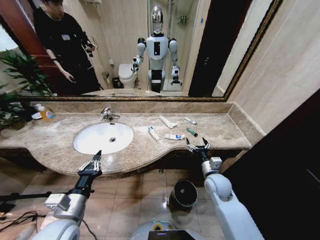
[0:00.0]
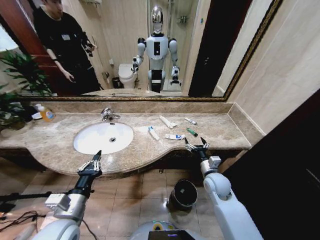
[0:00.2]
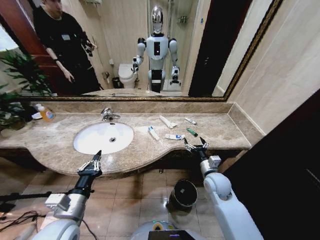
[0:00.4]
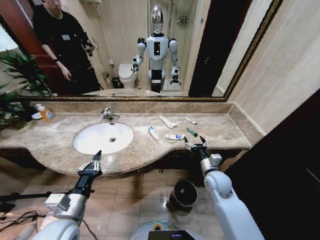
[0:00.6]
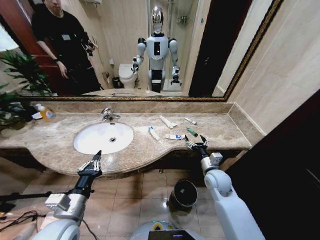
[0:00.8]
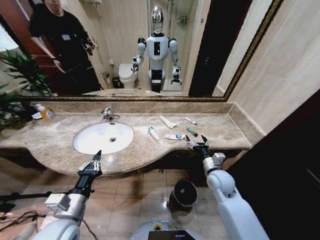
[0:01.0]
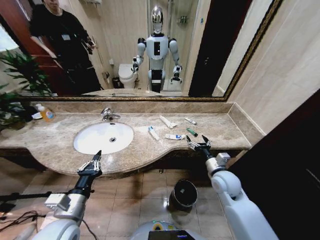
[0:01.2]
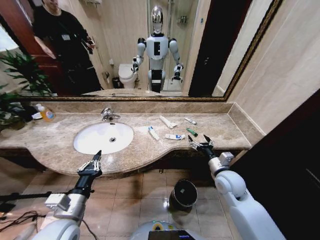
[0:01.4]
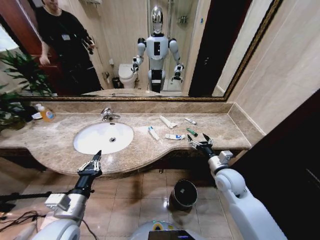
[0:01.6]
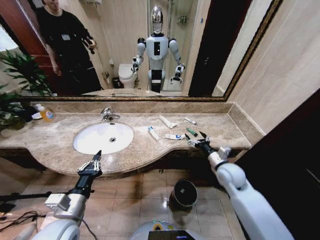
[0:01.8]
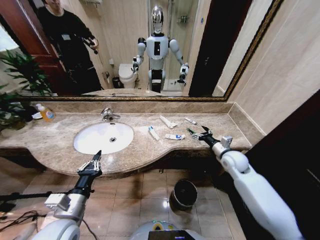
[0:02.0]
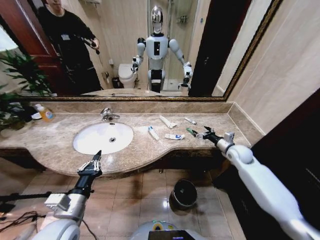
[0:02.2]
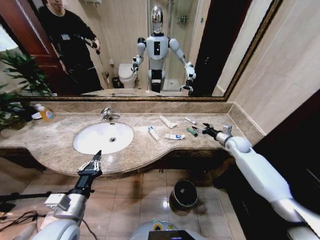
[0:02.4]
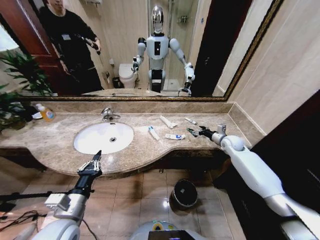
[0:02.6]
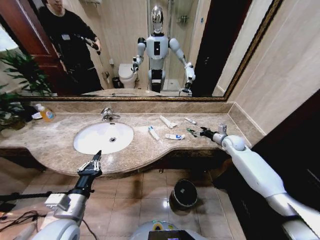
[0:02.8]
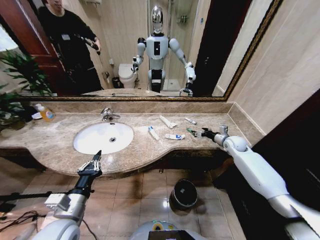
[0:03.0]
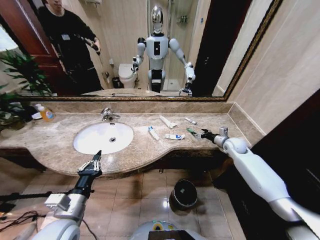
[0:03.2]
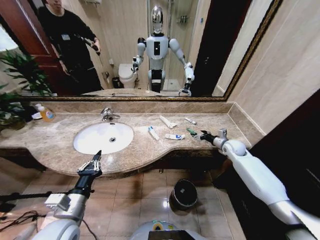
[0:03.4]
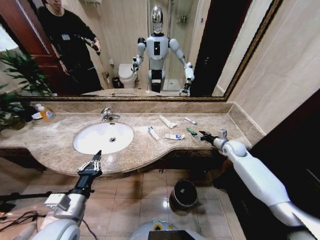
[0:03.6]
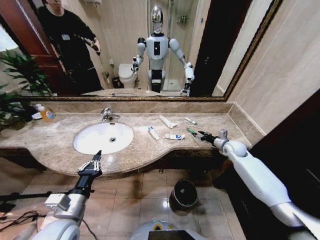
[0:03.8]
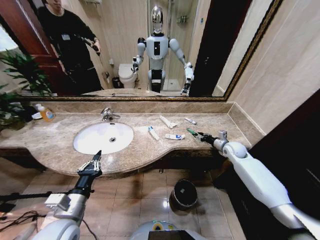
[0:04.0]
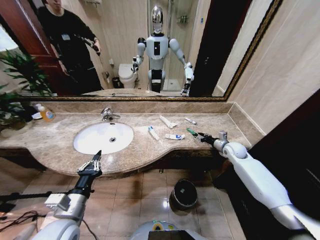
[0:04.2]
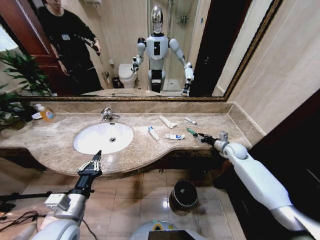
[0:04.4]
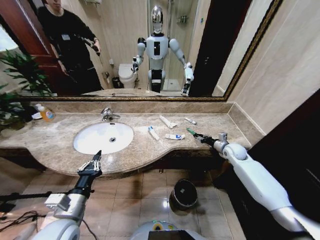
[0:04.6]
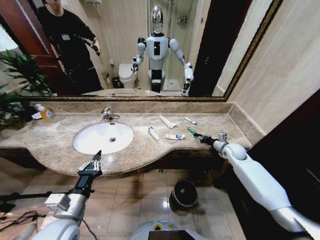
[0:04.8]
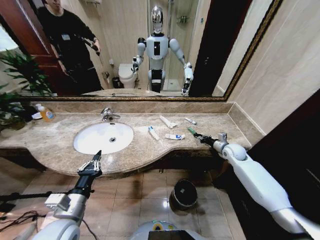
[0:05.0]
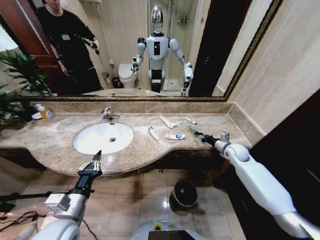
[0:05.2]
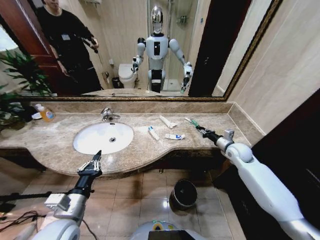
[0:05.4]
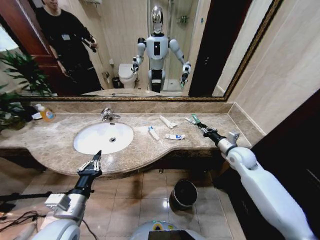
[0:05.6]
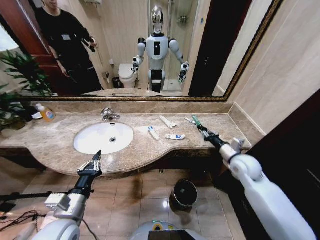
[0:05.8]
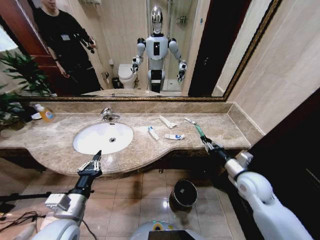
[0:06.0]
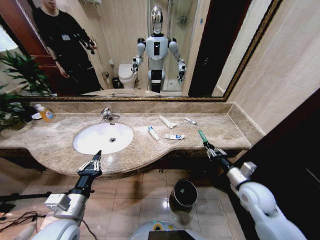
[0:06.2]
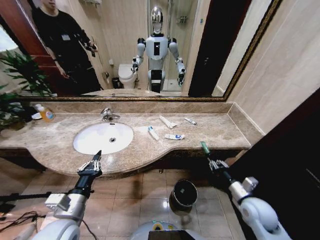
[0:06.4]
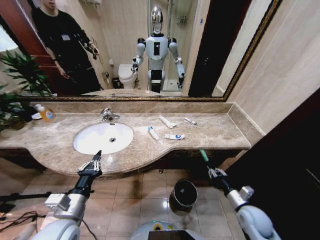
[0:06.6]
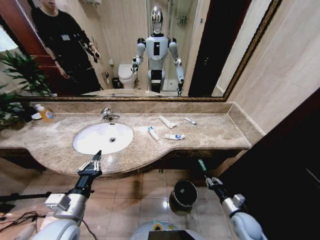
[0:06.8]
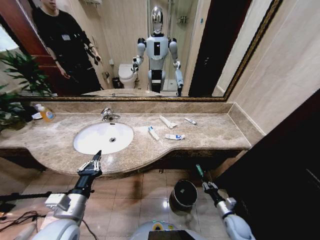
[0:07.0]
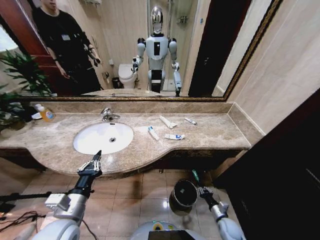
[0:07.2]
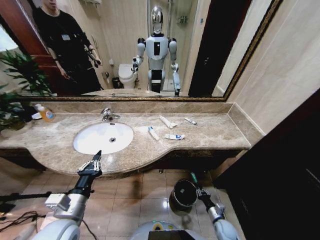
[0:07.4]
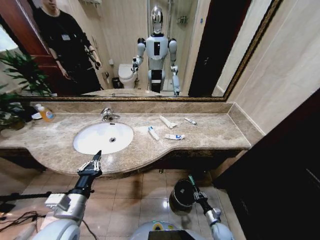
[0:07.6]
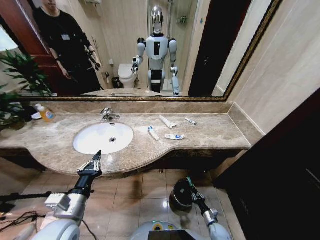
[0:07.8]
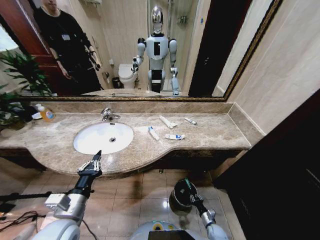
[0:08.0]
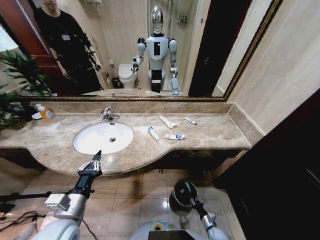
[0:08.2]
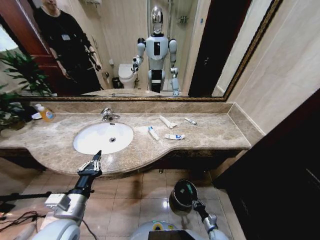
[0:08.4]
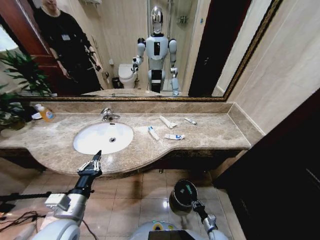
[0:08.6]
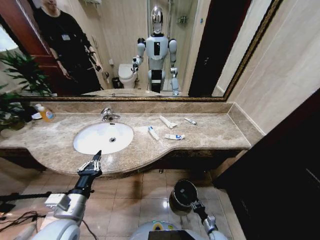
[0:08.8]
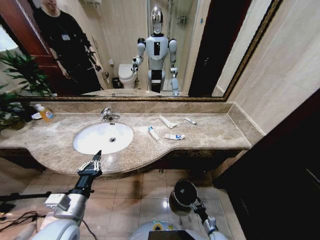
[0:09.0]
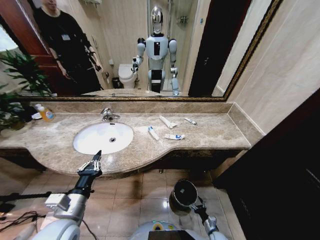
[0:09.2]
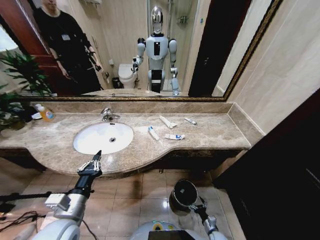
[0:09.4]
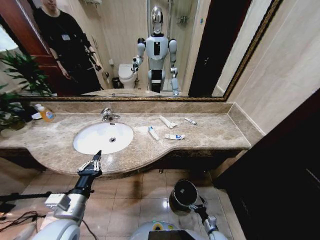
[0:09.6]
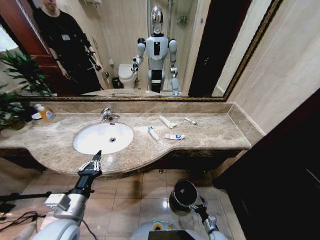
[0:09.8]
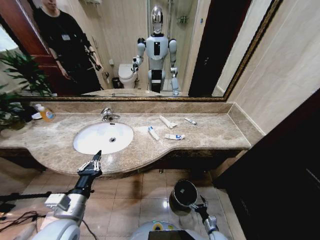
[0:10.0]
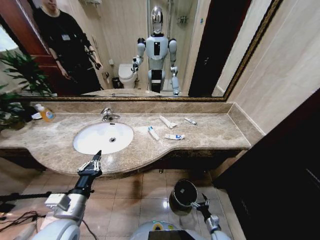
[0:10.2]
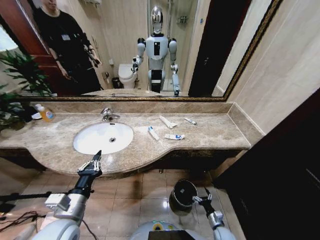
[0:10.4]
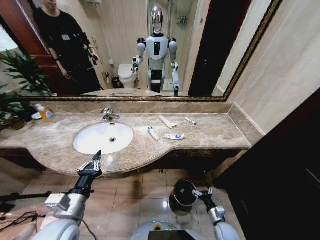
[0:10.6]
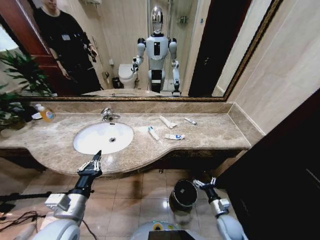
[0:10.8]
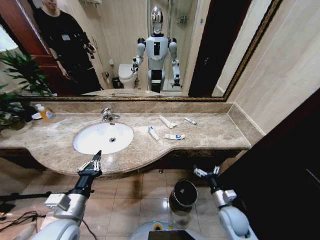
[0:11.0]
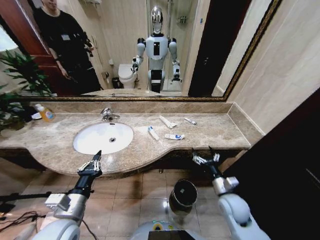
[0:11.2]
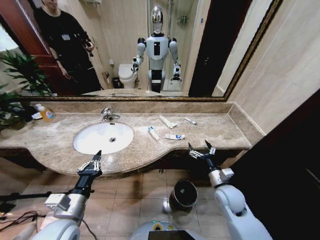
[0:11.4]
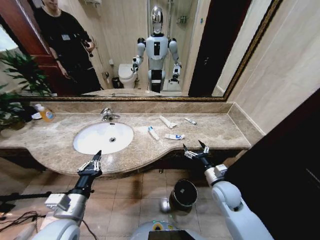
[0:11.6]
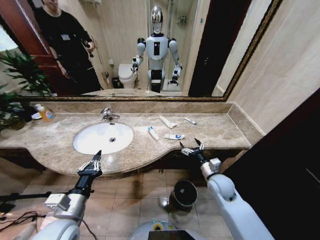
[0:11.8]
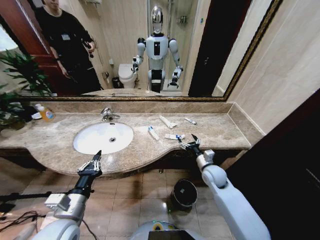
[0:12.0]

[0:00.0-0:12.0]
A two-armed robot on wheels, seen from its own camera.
Task of the whole recording: Pick up the trash from the sink and place it in the trash bin.
0:01.6 to 0:03.0: The right gripper heads forward and to the right, covering roughly 25 cm.
0:03.0 to 0:04.4: The right gripper closes.
0:04.4 to 0:06.0: The right gripper travels backward by roughly 20 cm.
0:06.0 to 0:07.6: The right gripper goes about 40 cm downward.
0:07.6 to 0:09.0: The right gripper shifts some 5 cm downward.
0:09.0 to 0:10.4: The right gripper shifts approximately 5 cm upward, and opens its fingers.
0:10.4 to 0:12.0: The right gripper travels upward and forward by some 35 cm.

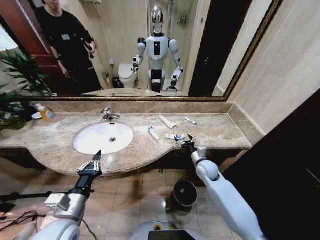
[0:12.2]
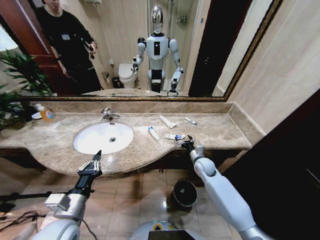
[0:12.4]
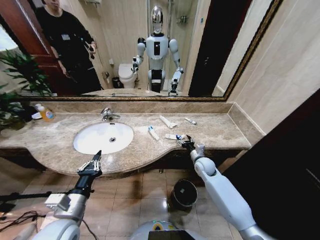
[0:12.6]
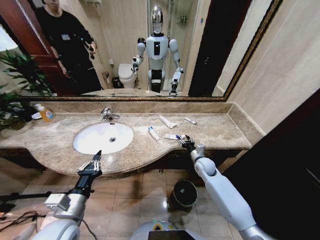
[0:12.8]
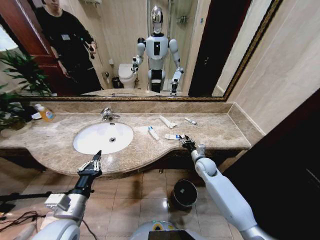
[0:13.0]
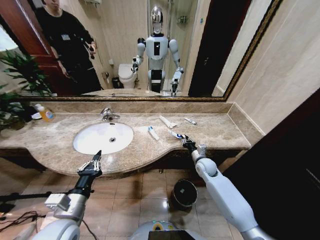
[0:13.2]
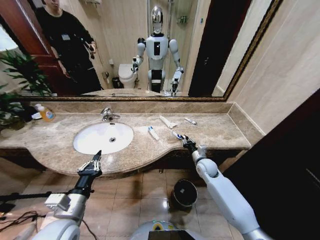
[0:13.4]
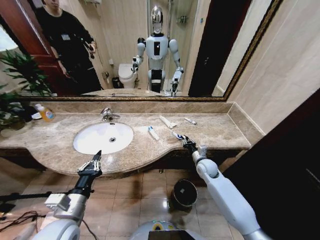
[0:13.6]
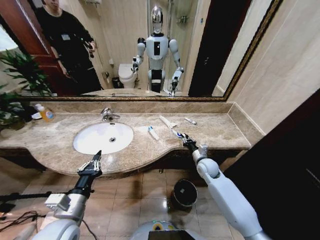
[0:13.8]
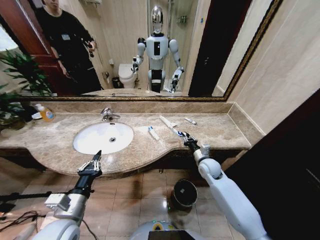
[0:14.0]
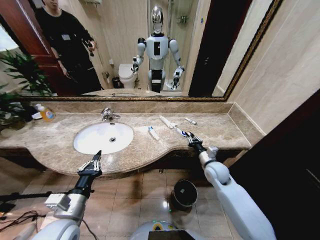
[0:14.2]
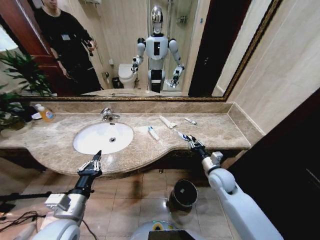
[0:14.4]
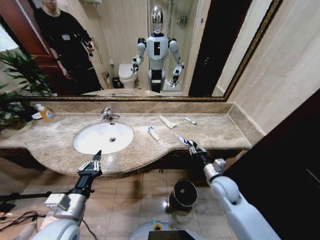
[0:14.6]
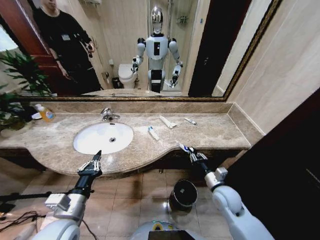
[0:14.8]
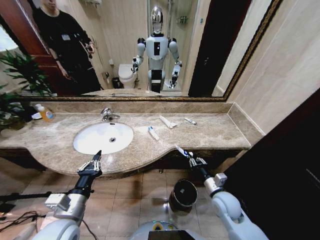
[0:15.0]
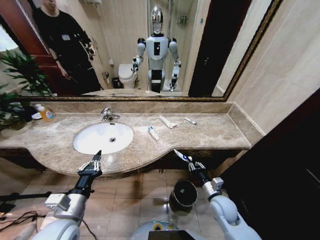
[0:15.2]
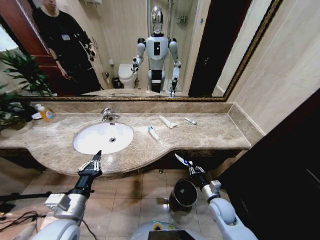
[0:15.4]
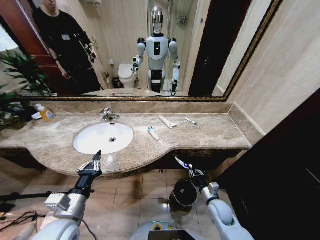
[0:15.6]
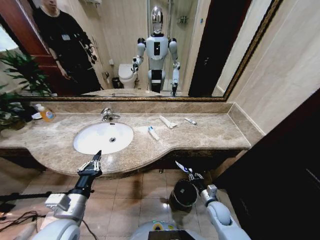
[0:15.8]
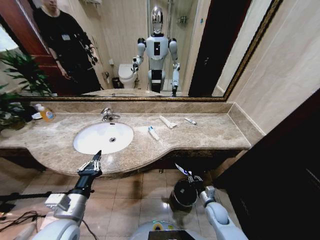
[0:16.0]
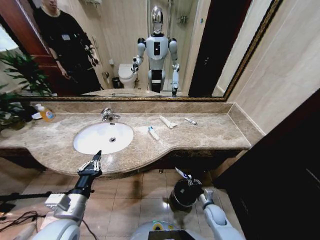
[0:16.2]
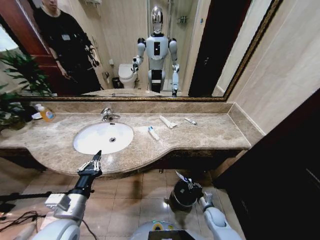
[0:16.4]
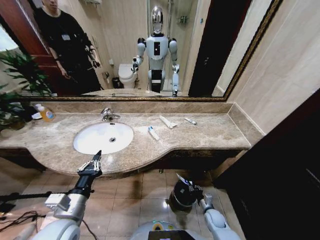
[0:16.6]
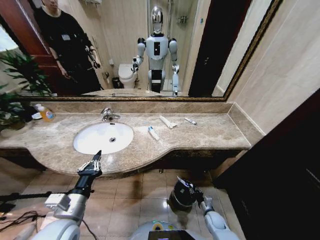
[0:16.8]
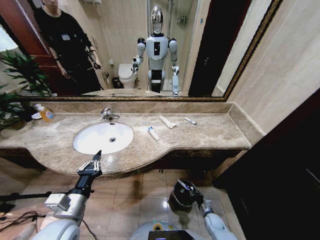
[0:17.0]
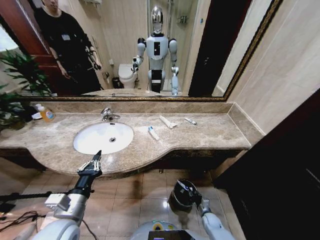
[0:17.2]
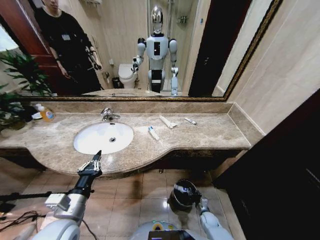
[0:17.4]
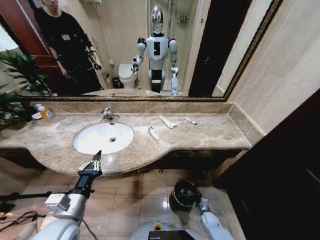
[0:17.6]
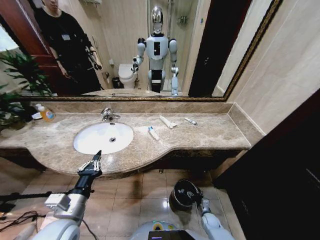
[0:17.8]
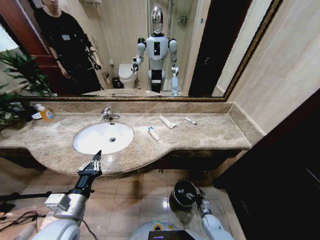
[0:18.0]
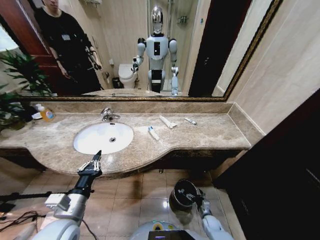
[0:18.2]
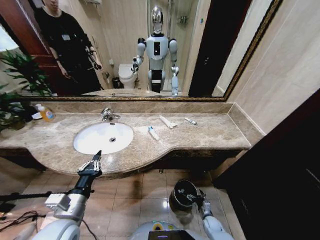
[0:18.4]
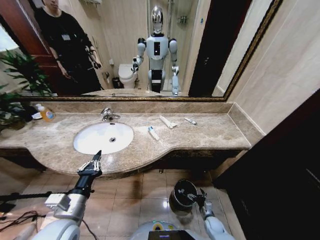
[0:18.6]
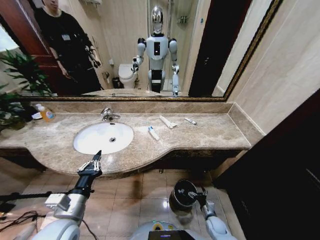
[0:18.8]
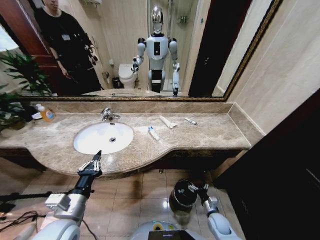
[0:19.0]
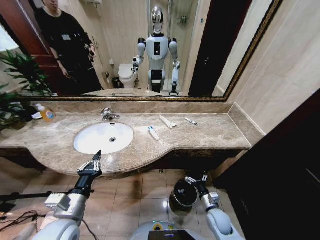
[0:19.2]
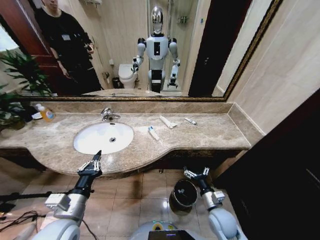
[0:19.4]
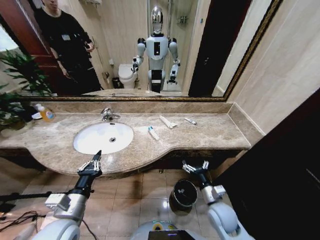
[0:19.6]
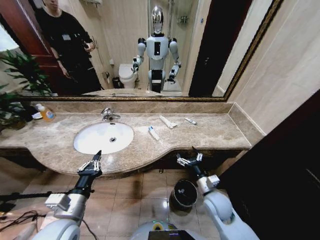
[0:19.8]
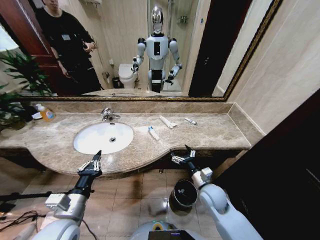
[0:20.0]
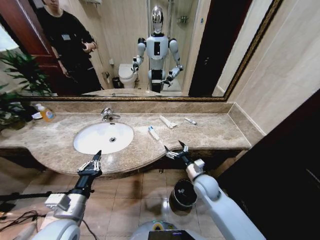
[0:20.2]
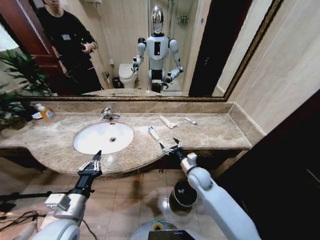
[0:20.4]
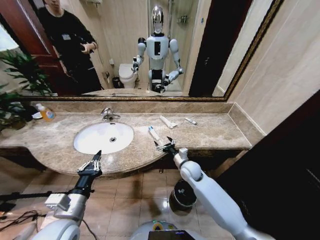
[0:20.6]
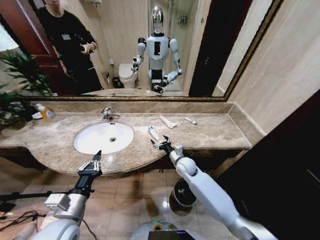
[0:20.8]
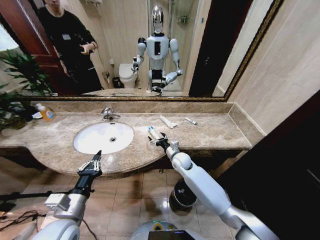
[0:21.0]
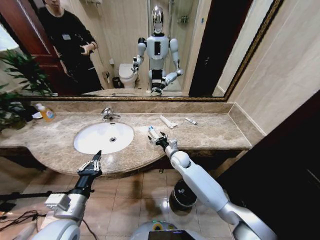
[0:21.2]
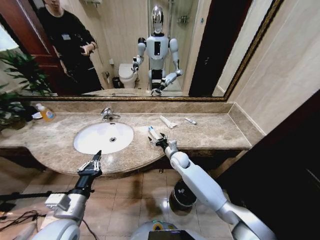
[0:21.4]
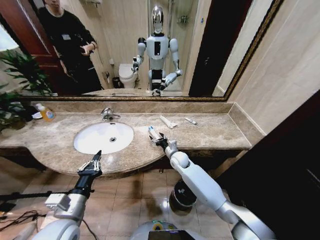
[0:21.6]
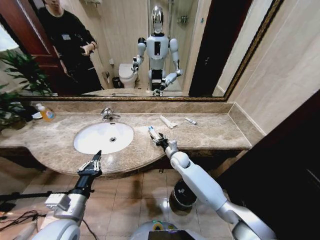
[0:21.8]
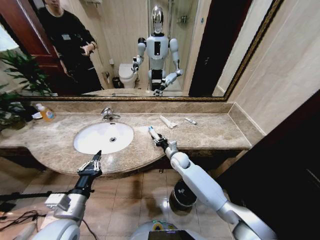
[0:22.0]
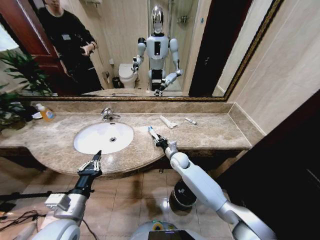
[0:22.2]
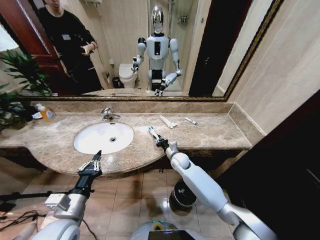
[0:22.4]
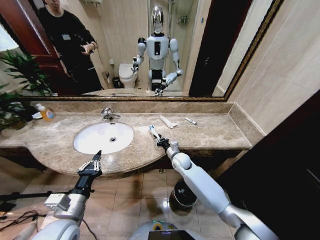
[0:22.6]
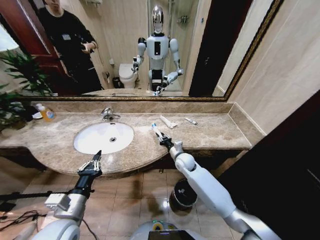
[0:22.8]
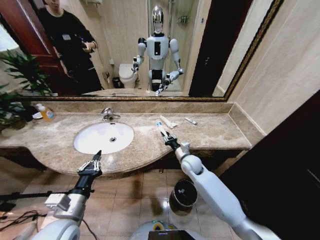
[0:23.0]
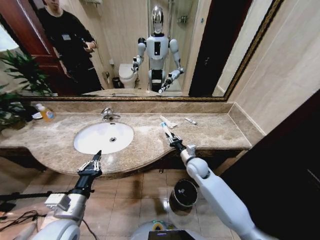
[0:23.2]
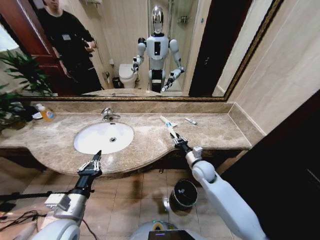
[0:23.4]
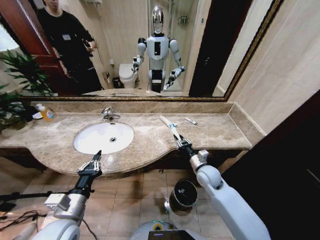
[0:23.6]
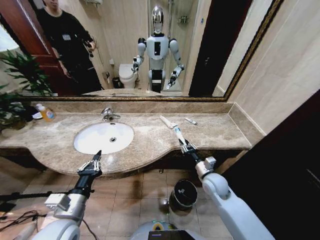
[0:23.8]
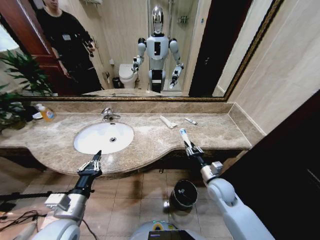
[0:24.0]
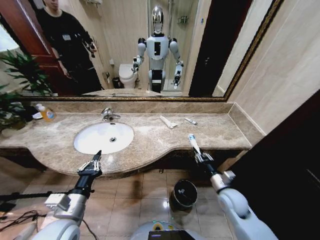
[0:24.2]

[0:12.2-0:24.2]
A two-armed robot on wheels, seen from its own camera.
Task of the whole recording: Pick up the trash from the sink and place it in the trash bin.
0:12.2 to 0:13.8: The right gripper closes its fingers.
0:13.8 to 0:15.2: The right gripper shifts some 15 cm backward.
0:15.2 to 0:16.6: The right gripper goes roughly 20 cm downward.
0:16.6 to 0:18.2: The right gripper moves downward, some 5 cm, and opens up.
0:18.2 to 0:19.8: The right gripper moves upward, some 30 cm.
0:19.8 to 0:21.2: The right gripper travels forward and to the left by roughly 25 cm.
0:21.2 to 0:22.6: The right gripper closes.
0:22.6 to 0:24.2: The right gripper goes roughly 25 cm backward and to the right.
